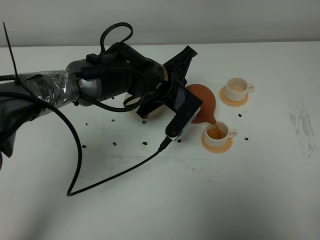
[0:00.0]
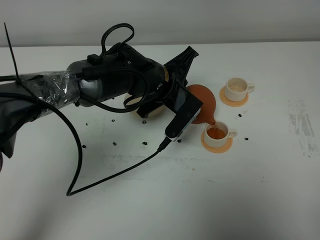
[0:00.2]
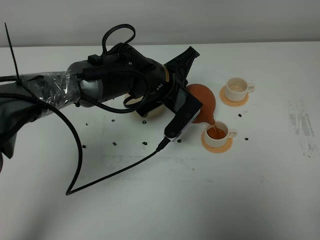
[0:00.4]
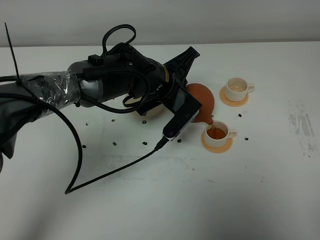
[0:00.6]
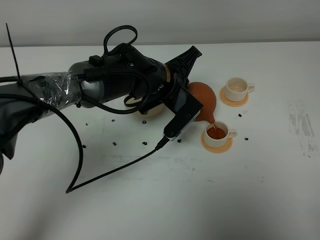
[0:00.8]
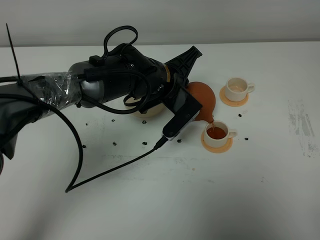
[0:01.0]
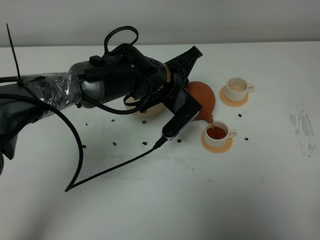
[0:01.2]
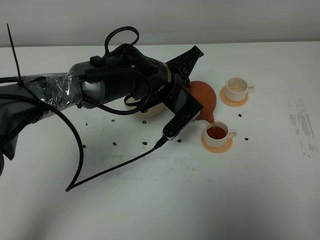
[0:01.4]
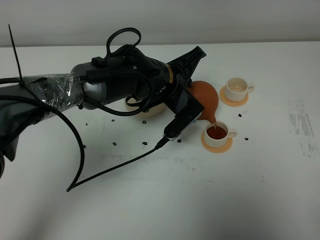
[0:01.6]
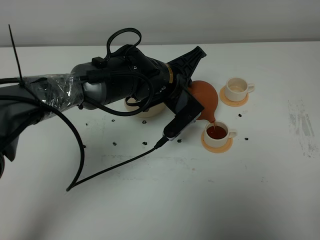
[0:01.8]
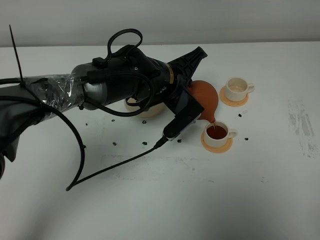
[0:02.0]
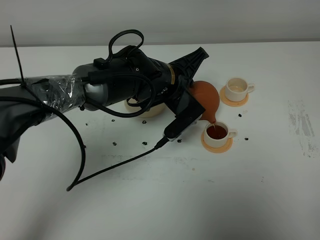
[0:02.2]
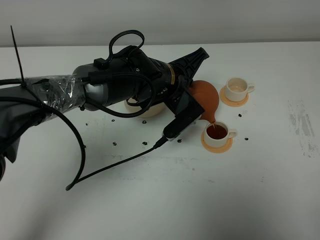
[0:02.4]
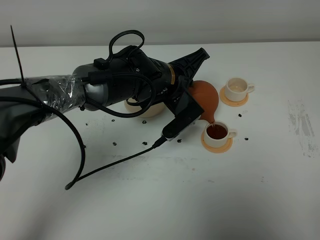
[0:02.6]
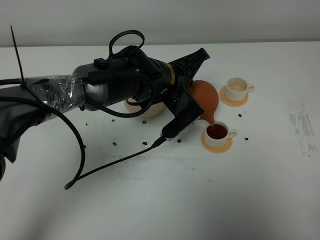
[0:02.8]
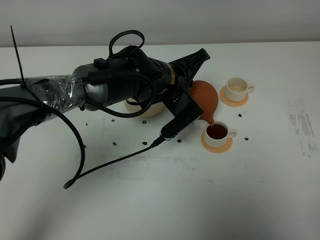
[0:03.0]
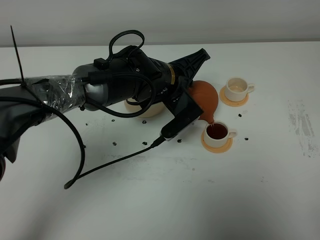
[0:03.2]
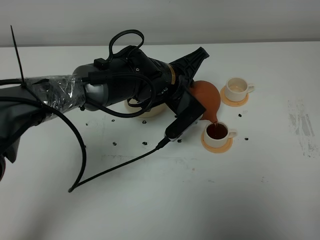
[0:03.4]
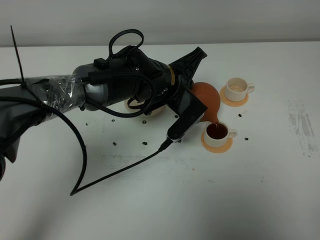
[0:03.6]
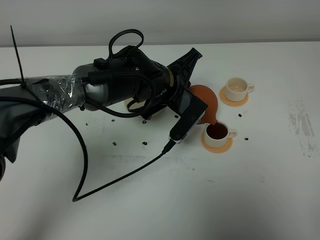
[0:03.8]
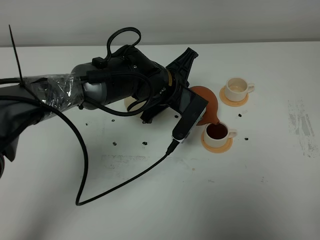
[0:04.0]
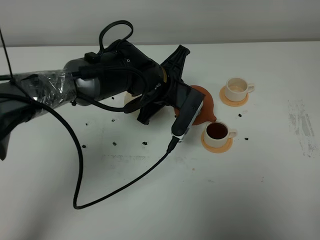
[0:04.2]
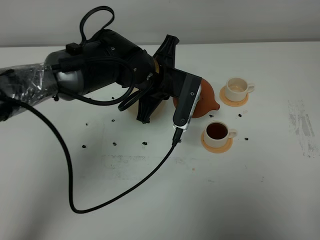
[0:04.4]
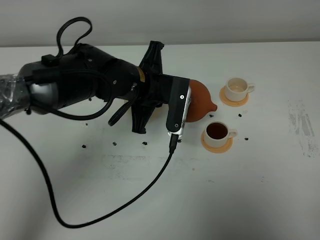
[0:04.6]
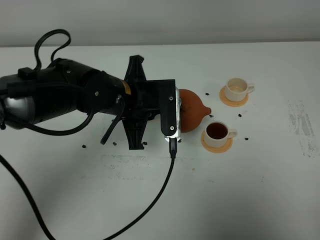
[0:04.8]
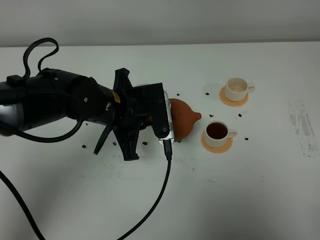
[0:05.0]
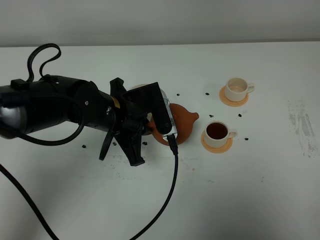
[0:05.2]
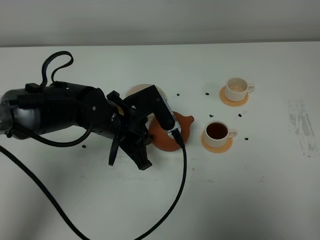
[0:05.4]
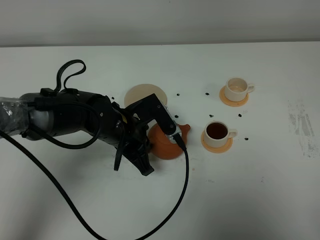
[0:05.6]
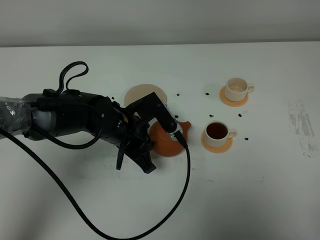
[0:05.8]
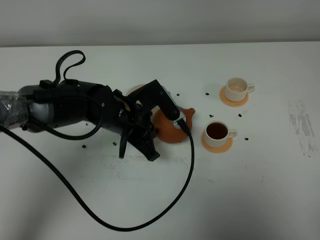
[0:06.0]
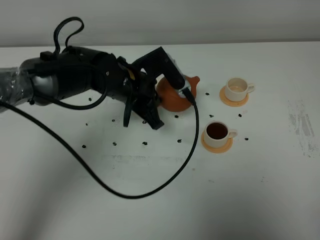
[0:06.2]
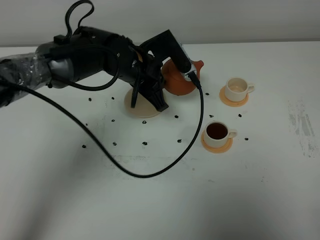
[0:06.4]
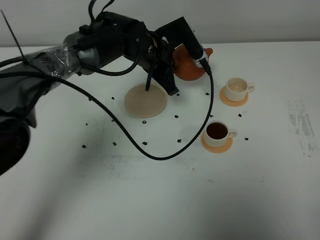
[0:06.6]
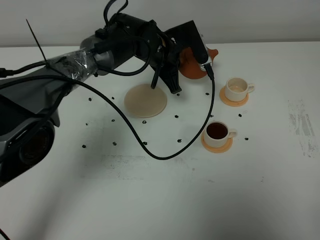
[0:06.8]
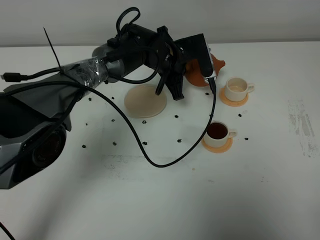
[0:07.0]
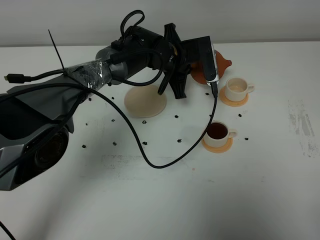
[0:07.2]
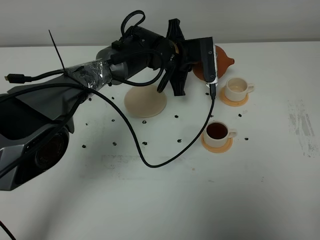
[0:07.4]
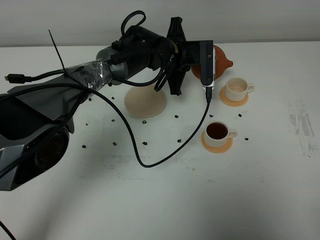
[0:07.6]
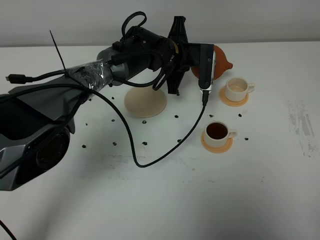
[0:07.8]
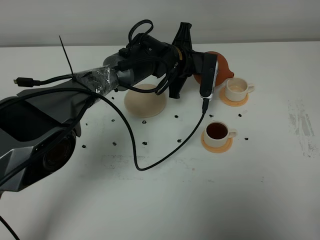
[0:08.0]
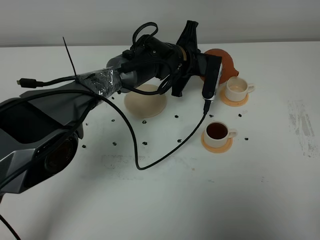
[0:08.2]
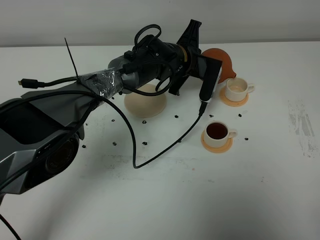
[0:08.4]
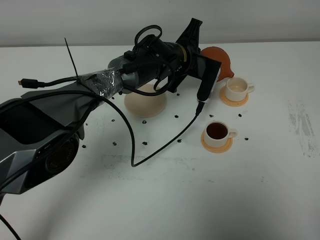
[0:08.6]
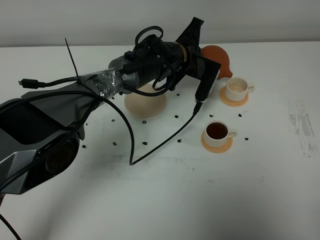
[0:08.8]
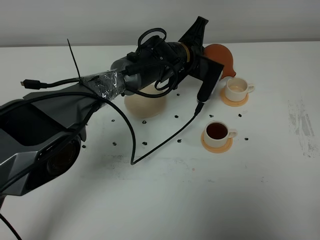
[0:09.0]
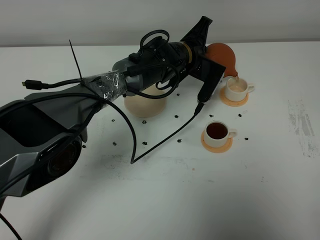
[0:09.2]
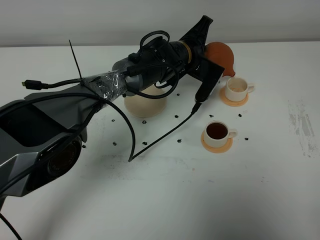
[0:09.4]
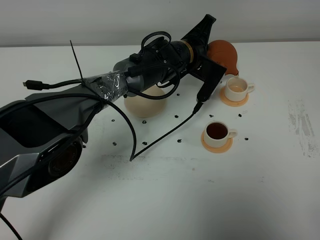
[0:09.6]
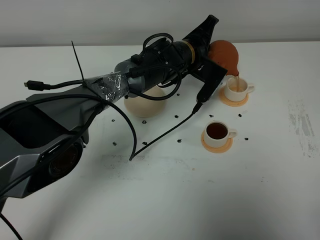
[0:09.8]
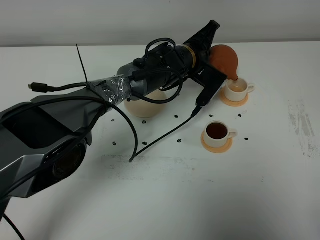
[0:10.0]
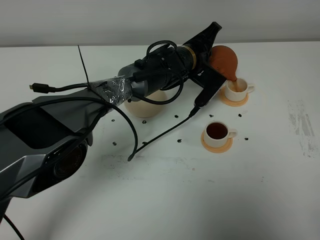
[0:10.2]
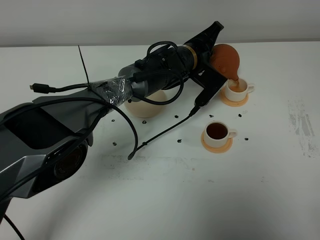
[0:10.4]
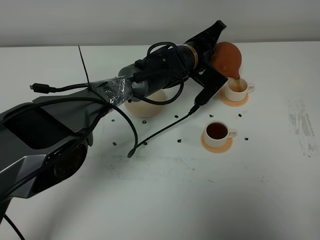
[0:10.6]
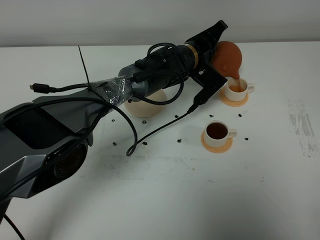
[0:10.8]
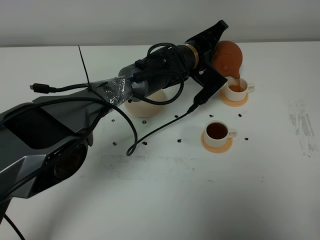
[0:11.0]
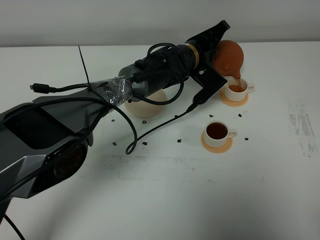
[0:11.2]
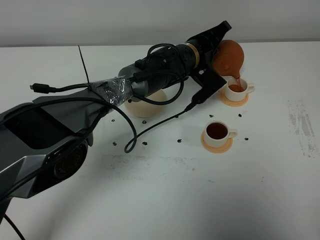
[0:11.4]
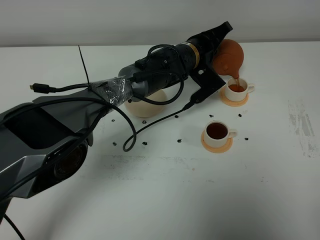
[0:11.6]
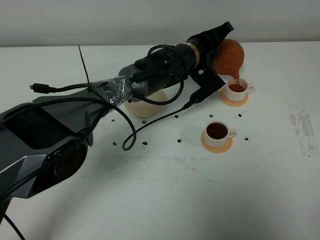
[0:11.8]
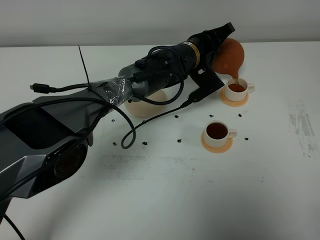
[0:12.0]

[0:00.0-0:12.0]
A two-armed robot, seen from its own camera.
Task of the whole recording: grasp the brown teapot and pour the tea into the two white teacups one by one, put the brown teapot back in its original place.
0:00.0 to 0:03.0: The grippers make only small movements.
0:04.4 to 0:06.0: The left gripper is displaced downward by approximately 5 cm.
0:06.0 to 0:07.6: The left gripper goes some 15 cm forward and to the right.
0:09.0 to 0:10.4: The grippers move only a little.
0:10.4 to 0:12.0: The grippers stay close to where they were, moving slightly.

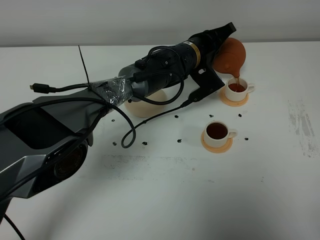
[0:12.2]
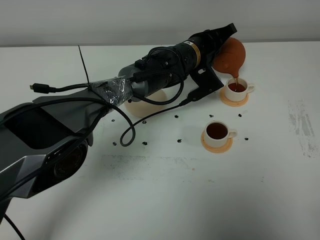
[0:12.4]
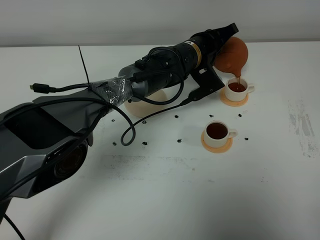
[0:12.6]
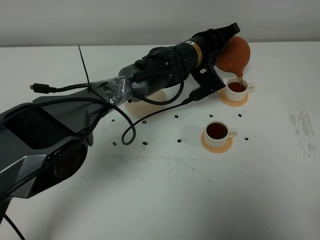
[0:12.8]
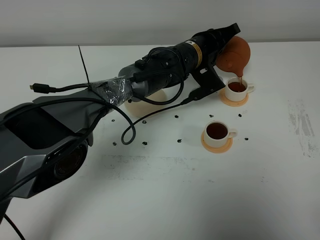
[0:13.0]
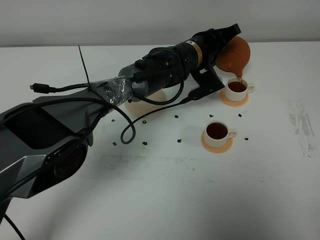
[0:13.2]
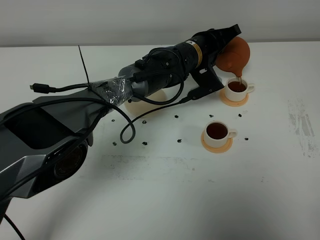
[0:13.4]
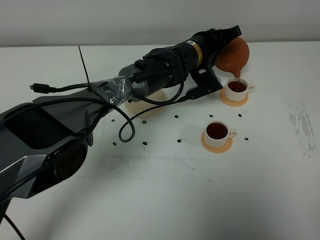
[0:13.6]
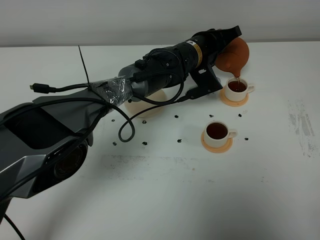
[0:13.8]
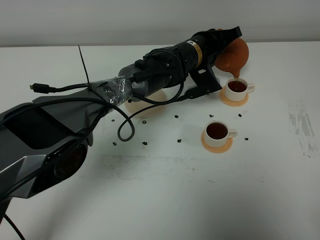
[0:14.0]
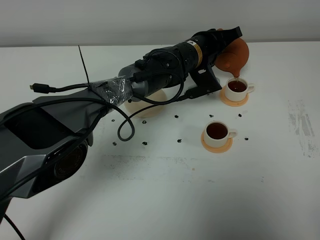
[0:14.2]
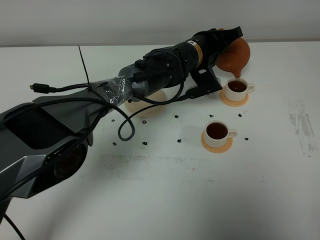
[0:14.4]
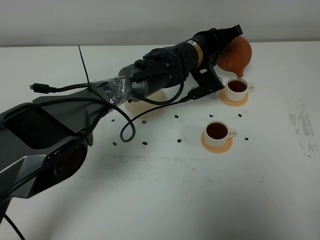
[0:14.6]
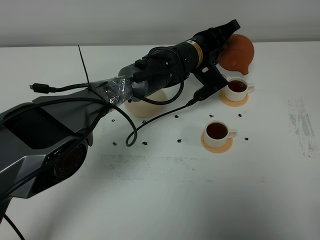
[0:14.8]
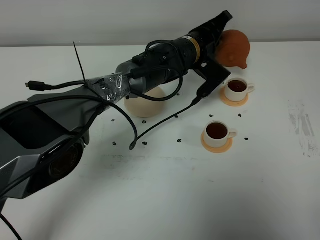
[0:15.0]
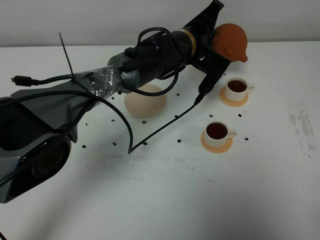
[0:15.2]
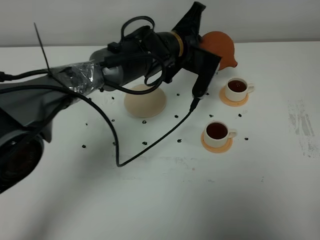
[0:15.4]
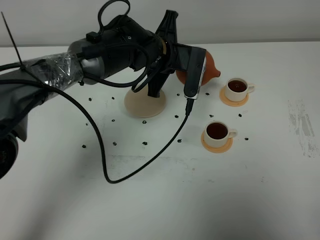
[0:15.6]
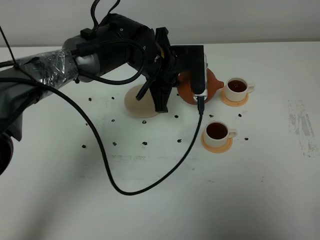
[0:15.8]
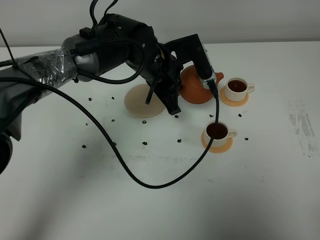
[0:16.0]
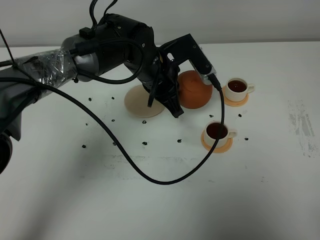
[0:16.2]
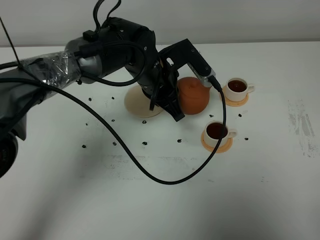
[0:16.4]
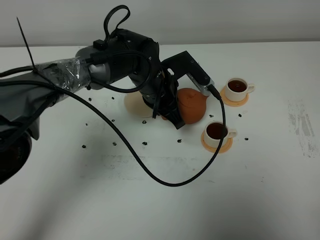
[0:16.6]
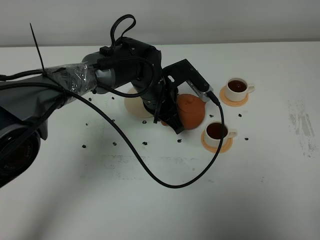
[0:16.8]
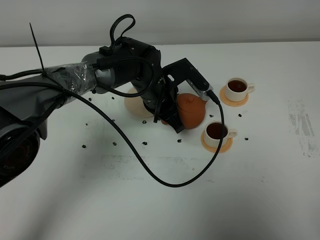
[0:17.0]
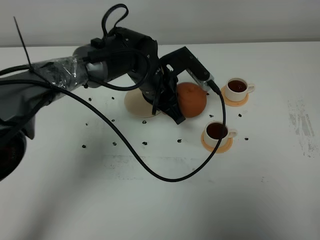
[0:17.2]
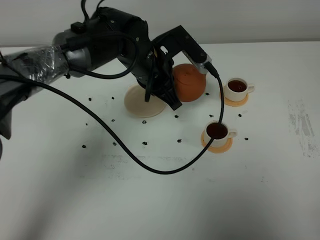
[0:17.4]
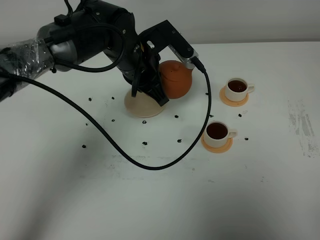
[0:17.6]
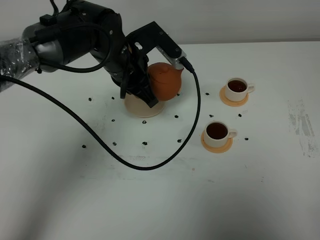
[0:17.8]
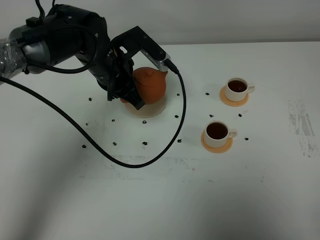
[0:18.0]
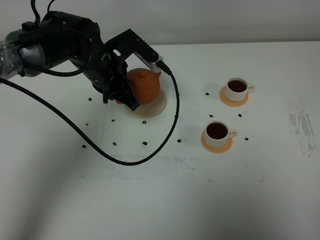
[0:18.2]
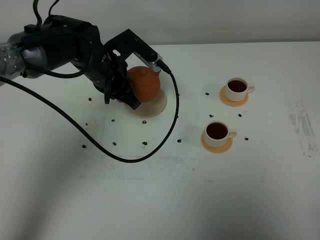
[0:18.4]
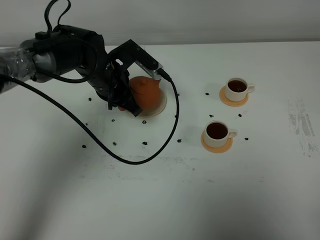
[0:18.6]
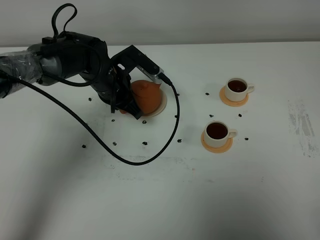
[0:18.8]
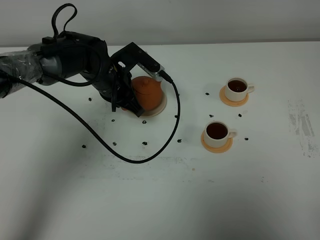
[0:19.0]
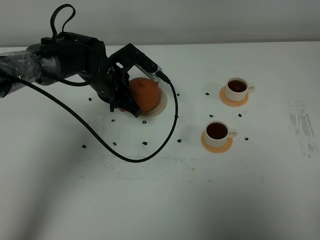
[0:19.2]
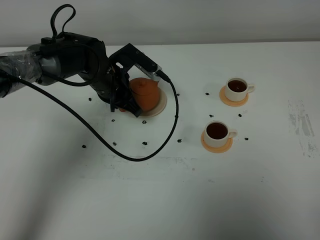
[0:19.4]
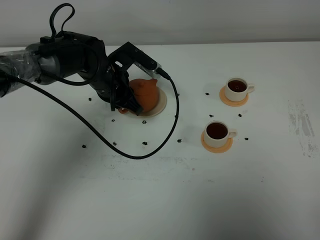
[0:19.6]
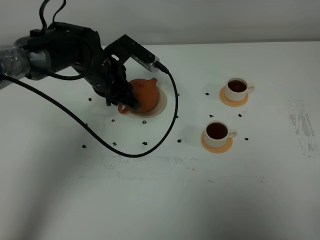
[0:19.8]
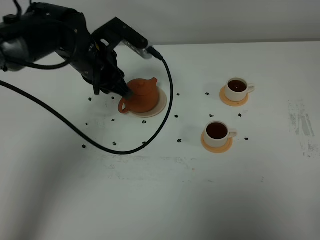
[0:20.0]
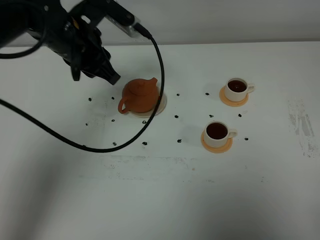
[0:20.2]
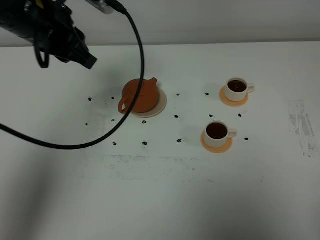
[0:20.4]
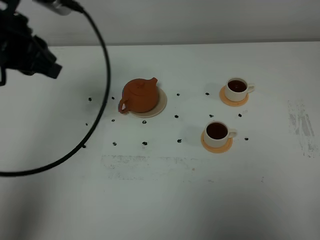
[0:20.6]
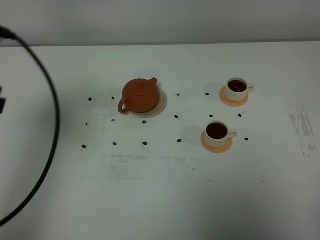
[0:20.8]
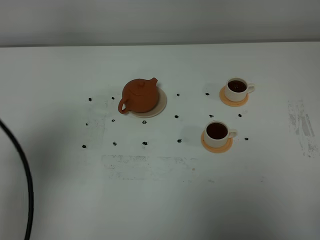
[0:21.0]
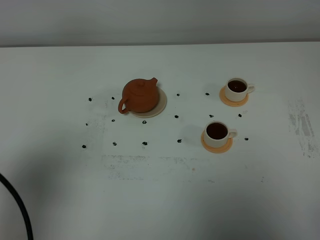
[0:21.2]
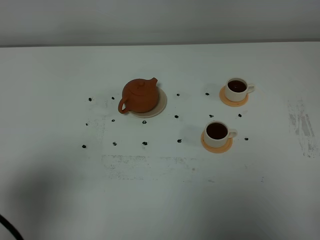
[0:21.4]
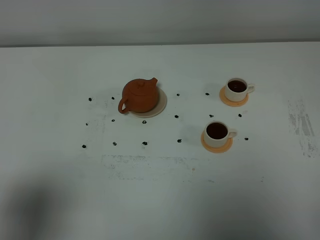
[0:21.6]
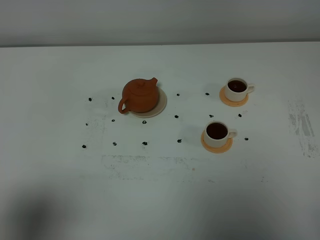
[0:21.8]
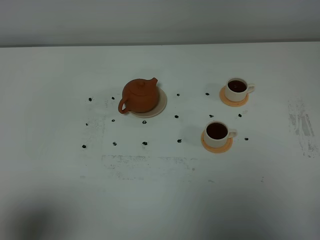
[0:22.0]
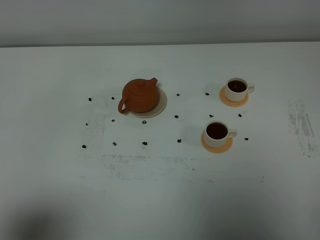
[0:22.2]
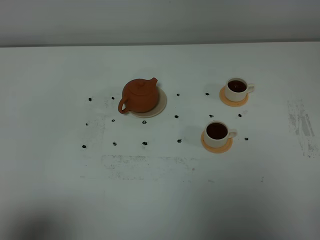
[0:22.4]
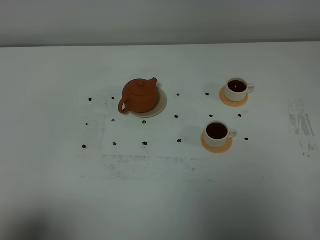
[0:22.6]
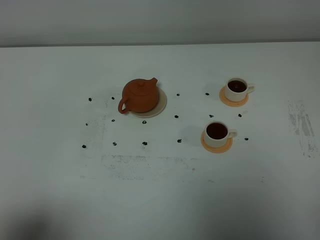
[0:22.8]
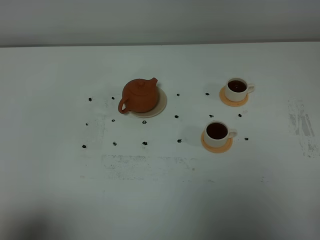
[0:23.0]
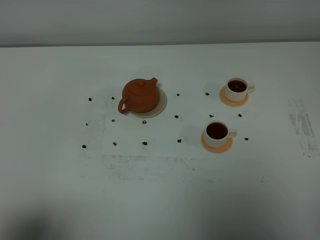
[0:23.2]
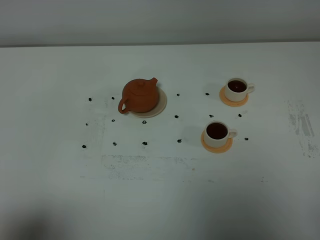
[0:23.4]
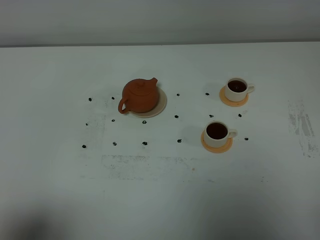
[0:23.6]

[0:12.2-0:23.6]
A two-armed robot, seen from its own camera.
Task of the whole recording: grasp the brown teapot and pour the tea into the two white teacups one by one, put the brown teapot back in its original place.
Step, 0:12.2 to 0:15.0: Pour tea into the teacup with the left gripper.
0:12.2 to 0:13.6: The grippers move only a little.
0:15.0 to 0:16.4: The left gripper travels to the left and backward by approximately 10 cm.
0:16.4 to 0:17.8: The left gripper is displaced to the left by about 5 cm.
0:17.8 to 0:19.4: The left gripper is displaced downward by approximately 5 cm.
0:19.4 to 0:20.8: The left gripper is displaced backward, upward and to the left by roughly 35 cm.
0:20.8 to 0:22.2: The left gripper goes roughly 20 cm backward.
0:22.2 to 0:23.6: The two grippers keep their place.
